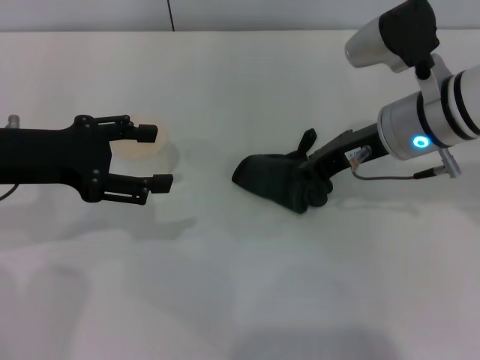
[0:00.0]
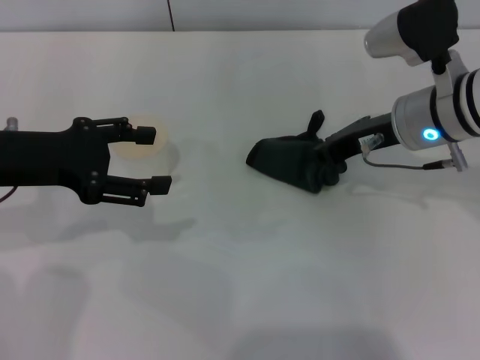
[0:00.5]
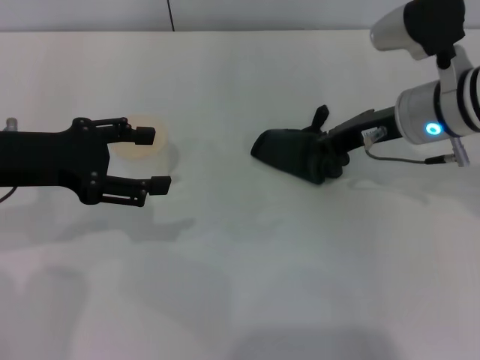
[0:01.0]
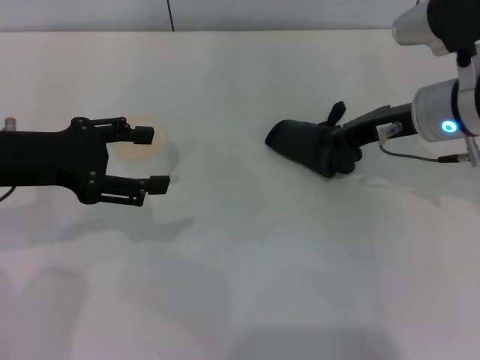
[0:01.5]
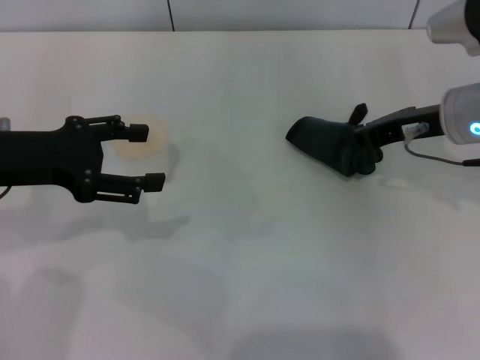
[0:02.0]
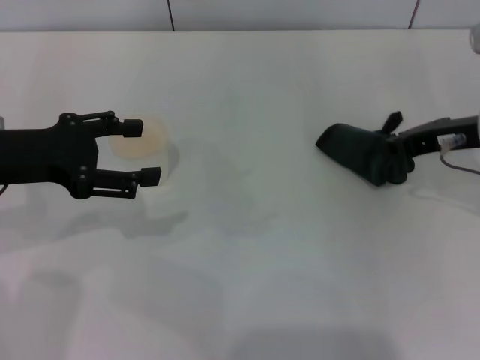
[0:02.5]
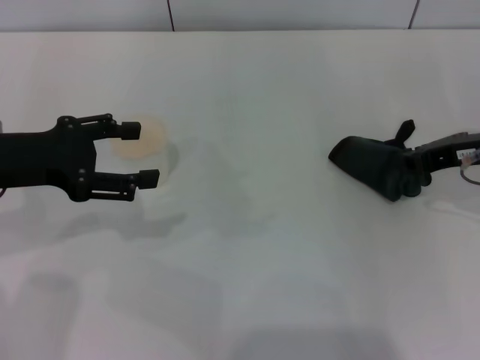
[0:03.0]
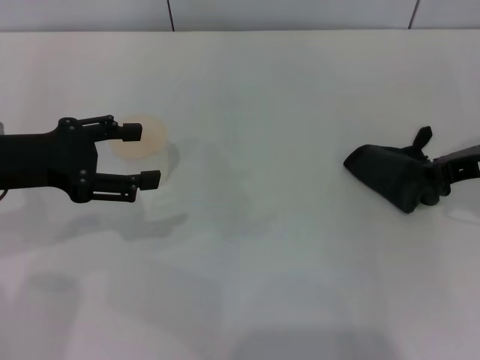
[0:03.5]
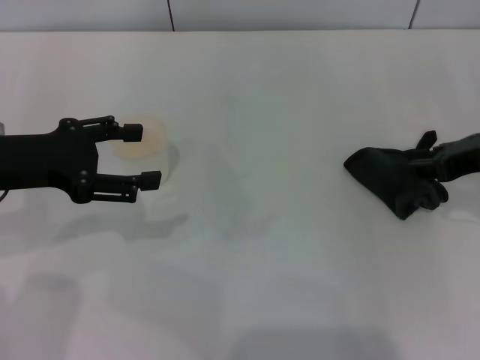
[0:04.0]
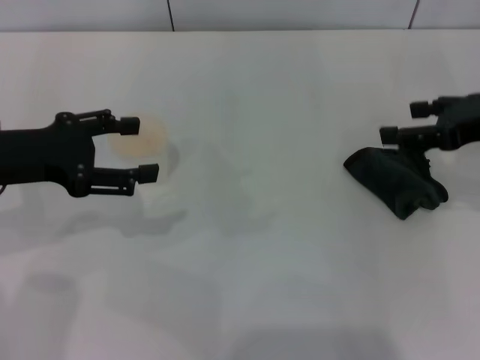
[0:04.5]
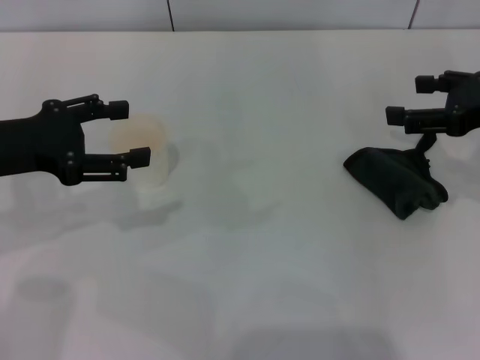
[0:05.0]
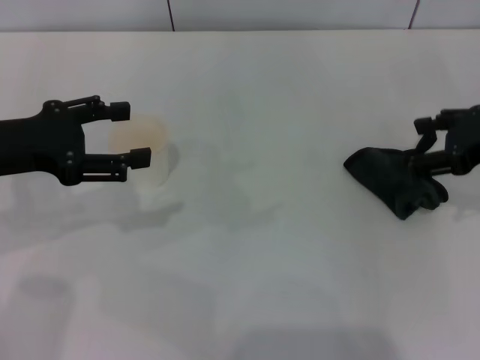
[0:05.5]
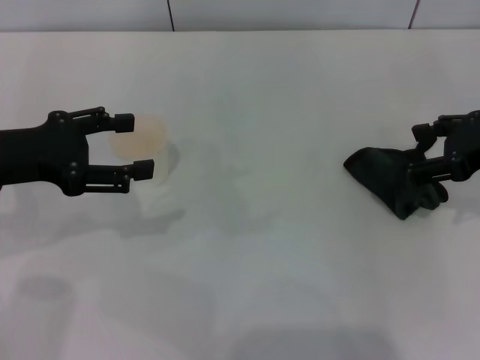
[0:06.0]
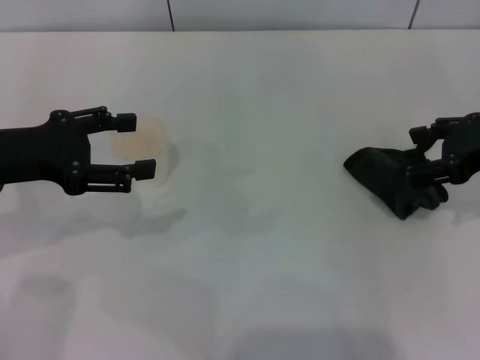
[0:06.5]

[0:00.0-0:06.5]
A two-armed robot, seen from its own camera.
Step, 0:00.0 to 0:02.0: Wipe the stains off the table with the right gripper.
Step, 0:02.5 to 0:04.0: Place the rag on the table with the right gripper.
0:00.0 to 0:02.0: The right gripper travels to the right by about 5 cm.
0:02.0 to 0:04.5: The right gripper moves to the right and backward, approximately 10 cm, and opens up.
0:04.5 to 0:06.5: The grippers stay close to where they were, moving slightly.
